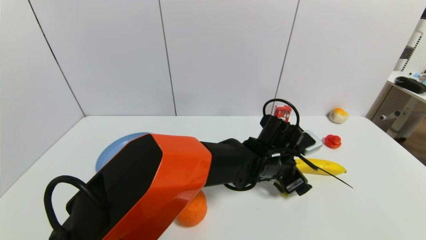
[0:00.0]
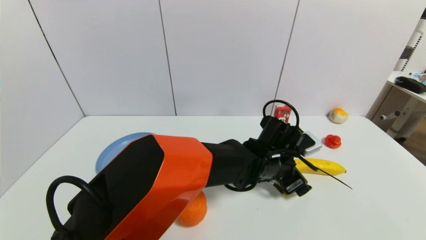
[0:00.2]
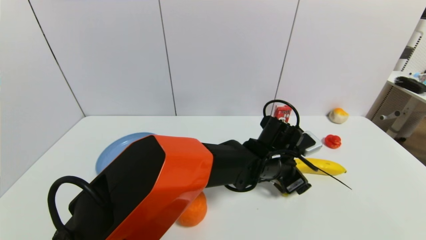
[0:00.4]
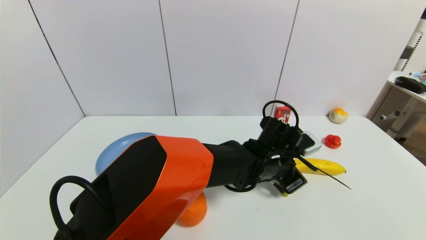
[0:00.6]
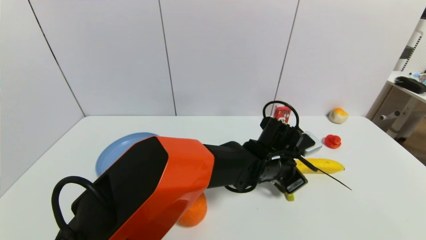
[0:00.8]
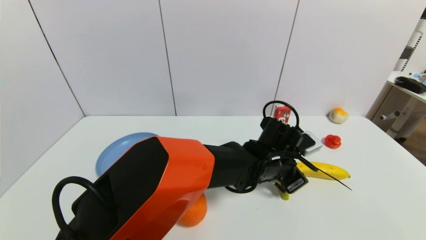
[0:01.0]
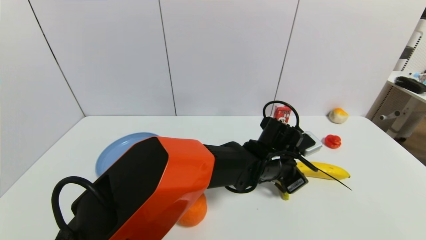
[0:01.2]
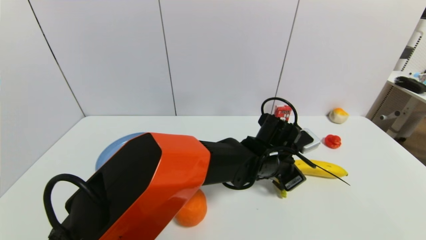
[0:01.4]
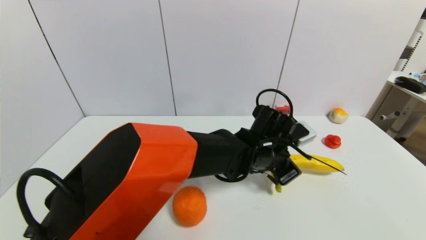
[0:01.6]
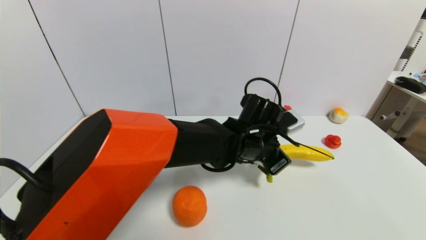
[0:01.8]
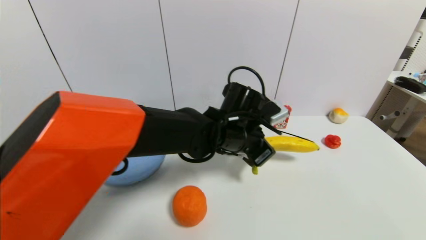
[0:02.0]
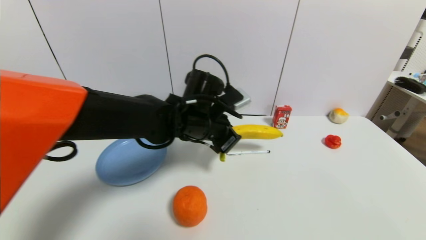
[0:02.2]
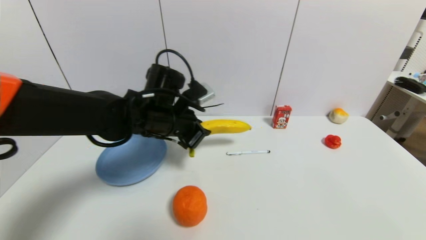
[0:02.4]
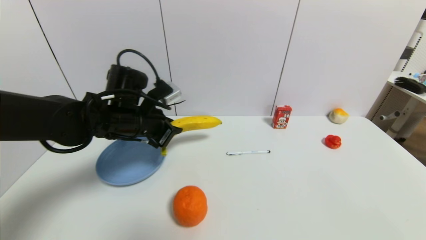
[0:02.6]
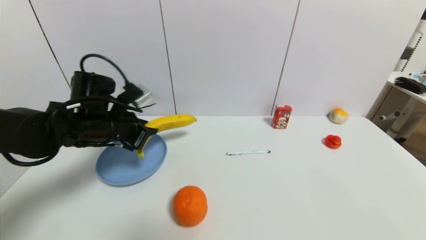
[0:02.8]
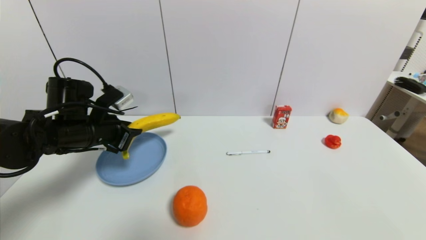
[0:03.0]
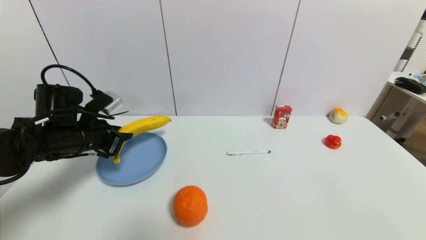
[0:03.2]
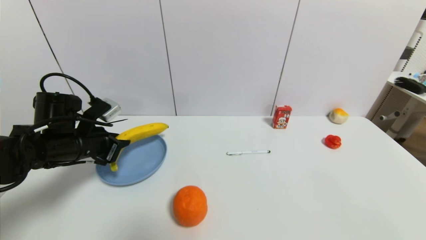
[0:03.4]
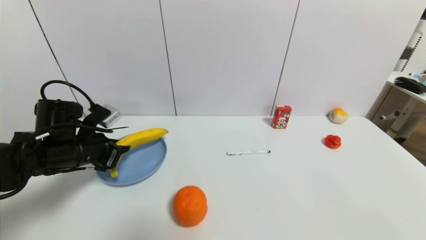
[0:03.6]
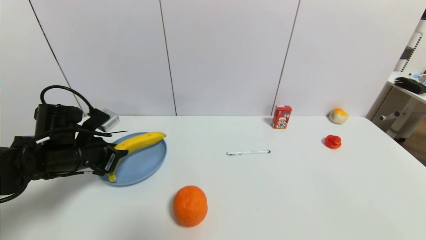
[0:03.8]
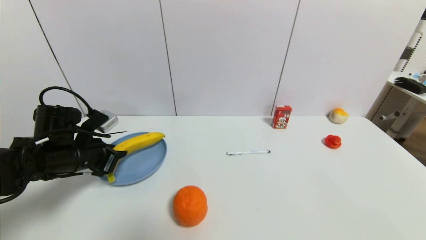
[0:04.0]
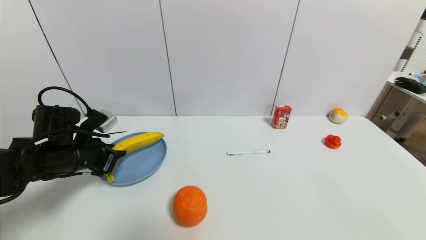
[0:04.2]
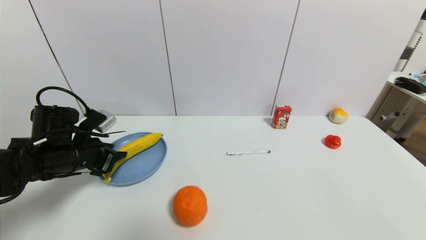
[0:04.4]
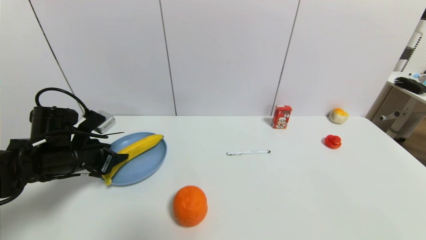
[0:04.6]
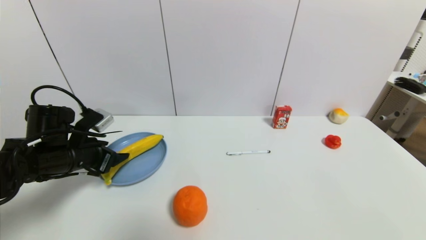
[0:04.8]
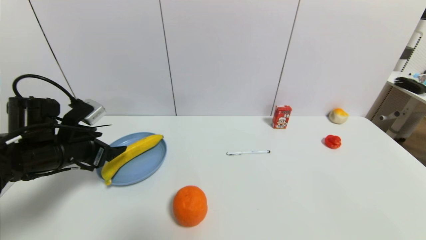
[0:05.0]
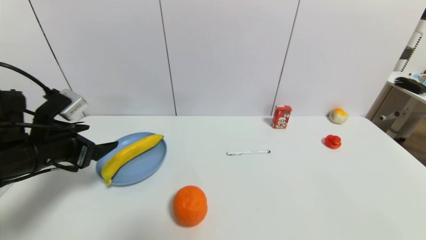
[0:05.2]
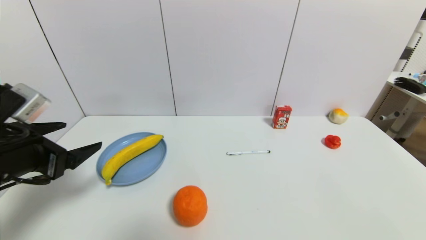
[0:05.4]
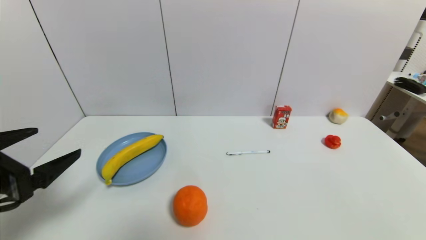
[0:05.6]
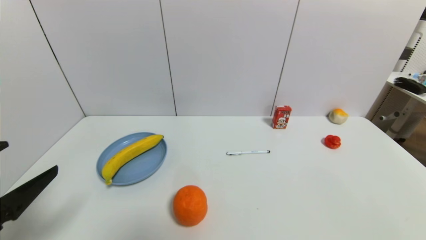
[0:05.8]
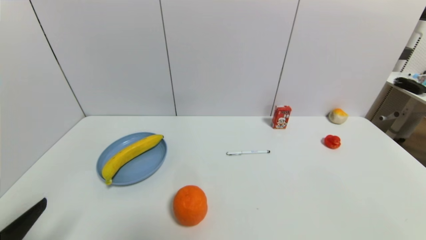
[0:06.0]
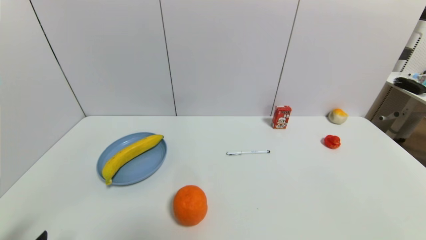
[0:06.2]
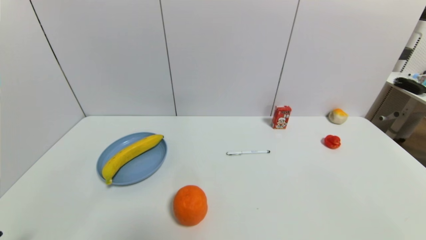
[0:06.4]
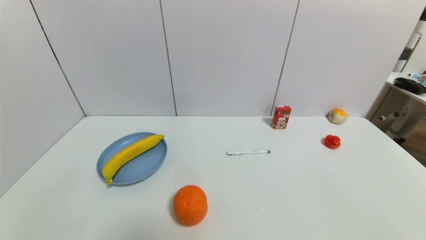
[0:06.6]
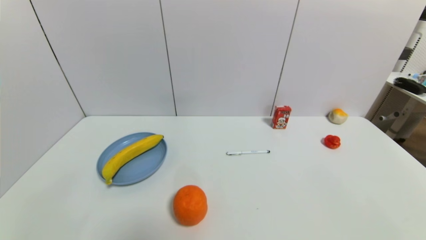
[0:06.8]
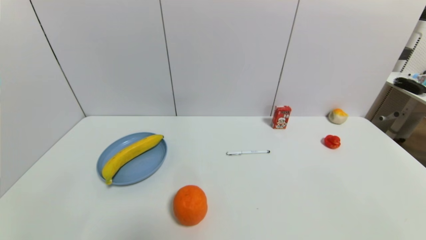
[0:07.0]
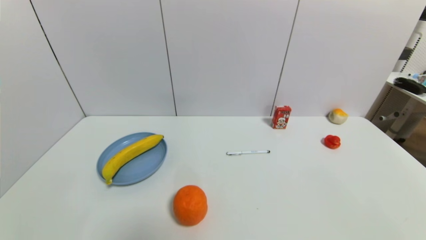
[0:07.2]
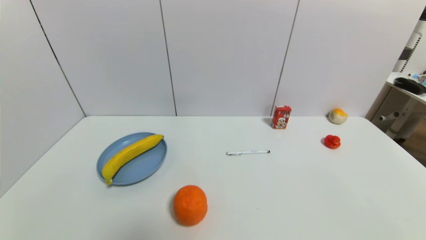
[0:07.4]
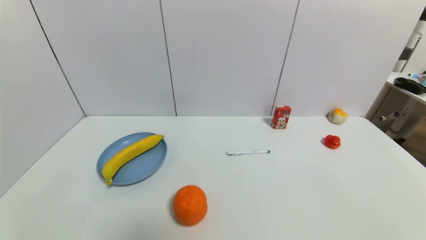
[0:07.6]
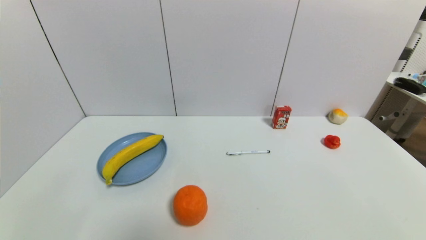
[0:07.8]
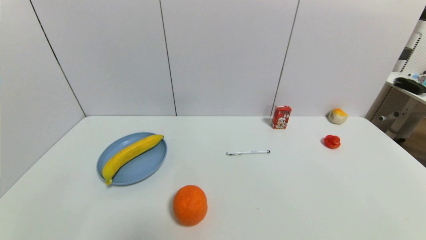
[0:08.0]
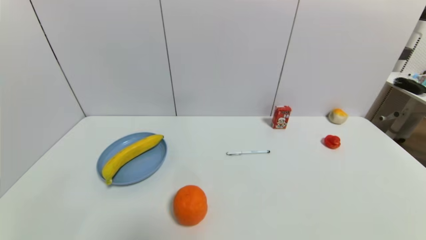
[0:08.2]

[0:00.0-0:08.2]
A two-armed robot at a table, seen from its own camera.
Task of the whole recording: use a gripper to pick the target object and place on the blue plate.
Step, 0:01.2 to 0:05.6: Place the banana on the blue plate with the left gripper.
0:00.0 to 0:01.6: The left gripper closes its fingers.
0:01.6 to 0:03.2: The left gripper goes about 35 cm to the left.
0:03.2 to 0:05.0: The left gripper opens its fingers.
0:05.0 to 0:06.6: The left gripper heads backward, covering roughly 25 cm.
